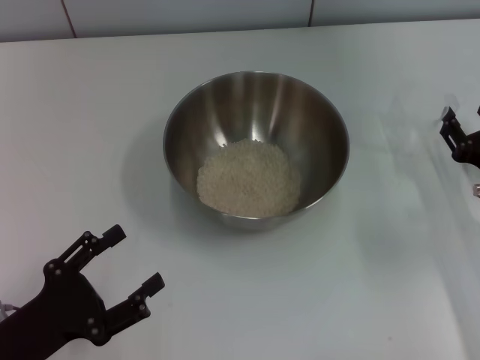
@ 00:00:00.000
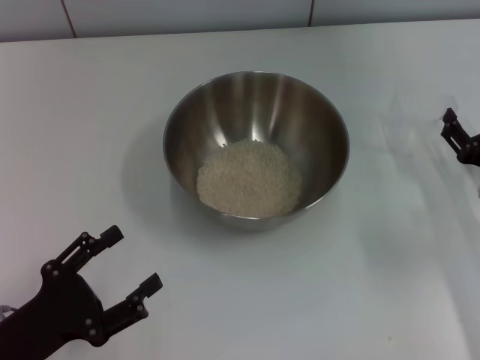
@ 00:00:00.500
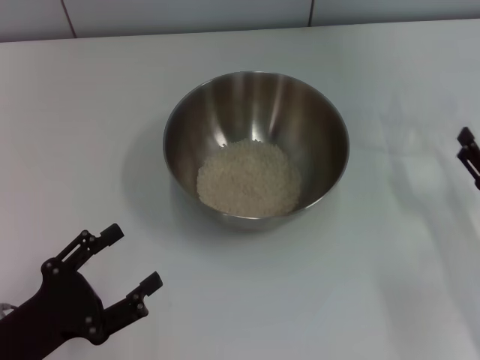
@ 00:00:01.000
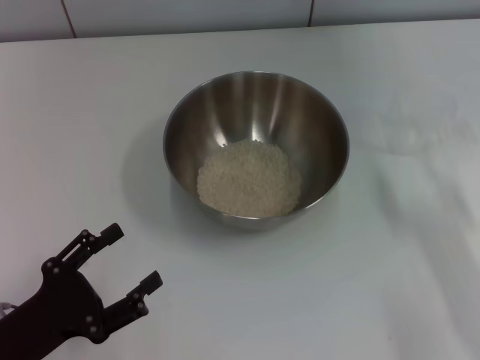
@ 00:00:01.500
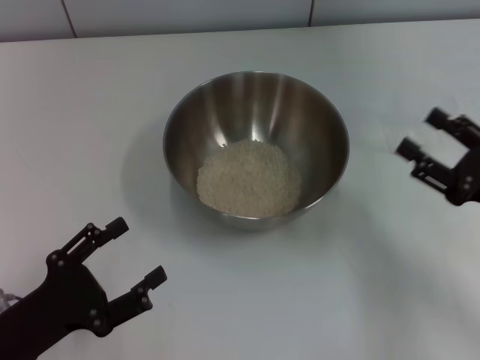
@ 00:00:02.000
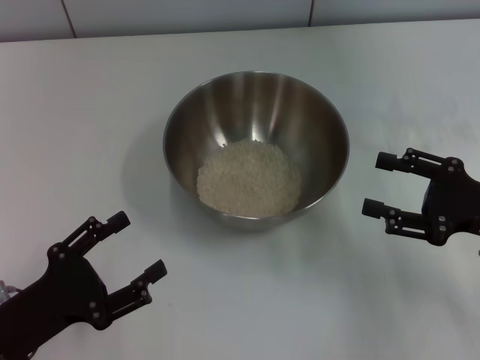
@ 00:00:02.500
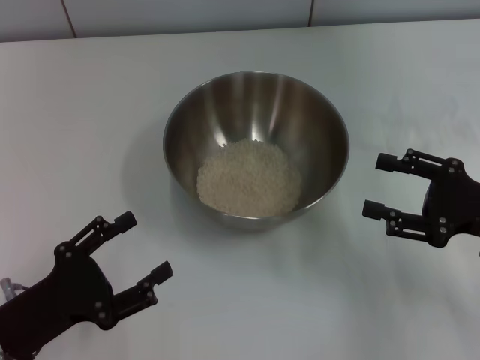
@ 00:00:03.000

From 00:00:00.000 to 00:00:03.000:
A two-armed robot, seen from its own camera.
Task of the whole recording: Place the bowl in the middle of the table with one hand and pour the rice from the grain cup into it with the other hand.
From 00:00:00.000 to 00:00:01.500: The right gripper shifts roughly 10 cm backward, and opens.
From 00:00:01.500 to 00:00:03.000: The right gripper travels forward by about 5 cm.
